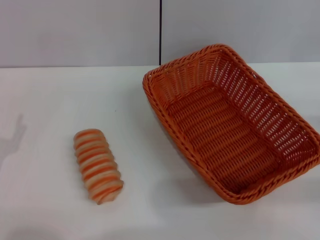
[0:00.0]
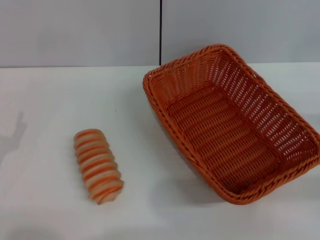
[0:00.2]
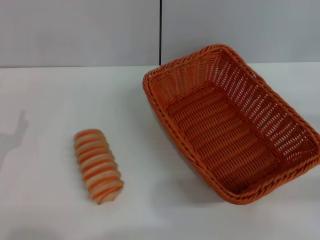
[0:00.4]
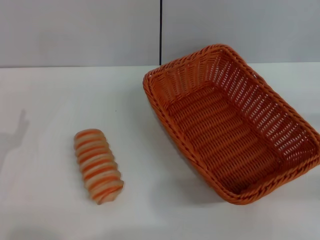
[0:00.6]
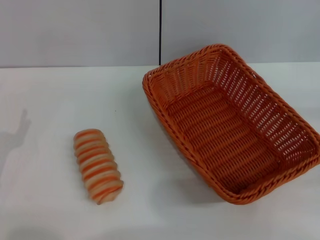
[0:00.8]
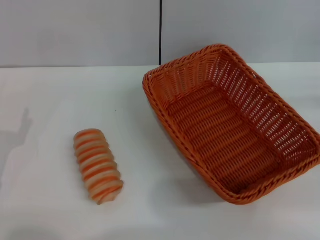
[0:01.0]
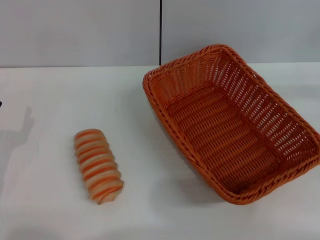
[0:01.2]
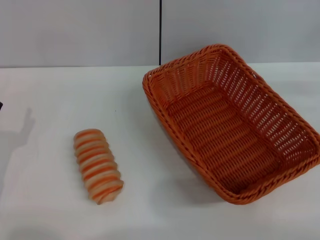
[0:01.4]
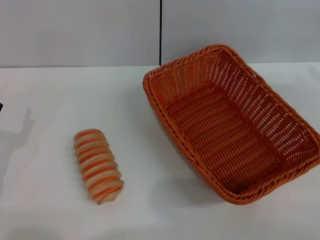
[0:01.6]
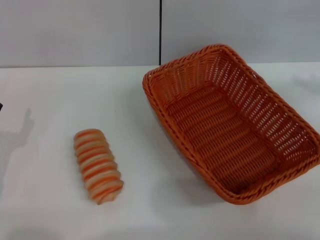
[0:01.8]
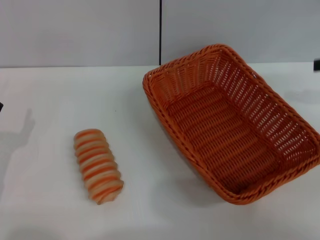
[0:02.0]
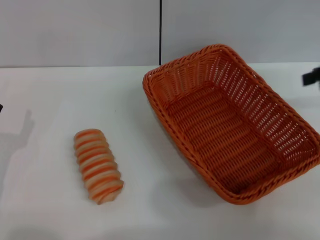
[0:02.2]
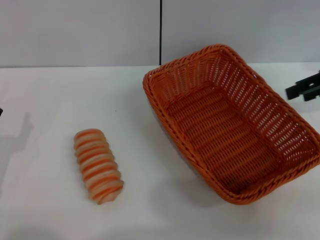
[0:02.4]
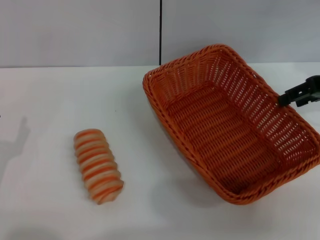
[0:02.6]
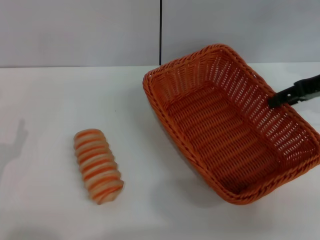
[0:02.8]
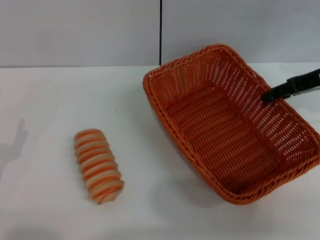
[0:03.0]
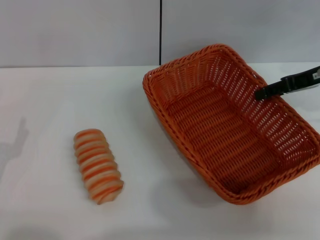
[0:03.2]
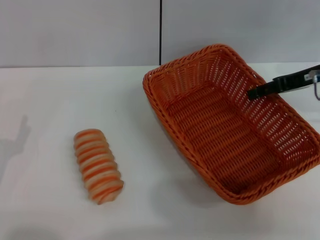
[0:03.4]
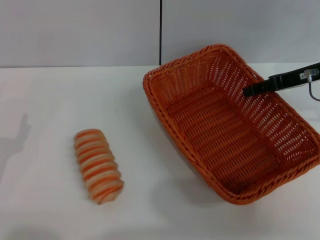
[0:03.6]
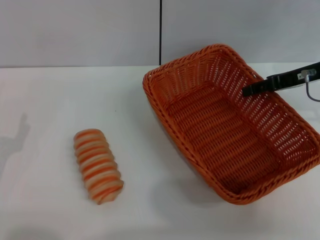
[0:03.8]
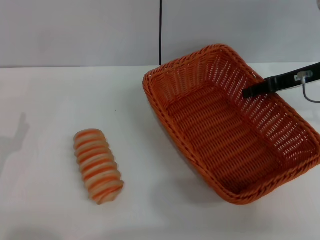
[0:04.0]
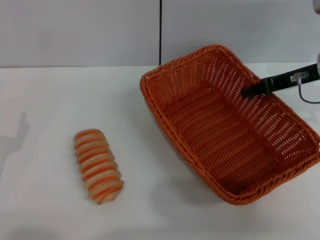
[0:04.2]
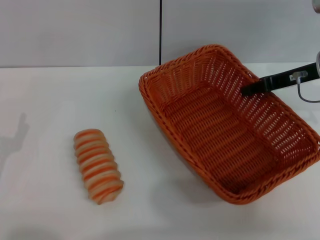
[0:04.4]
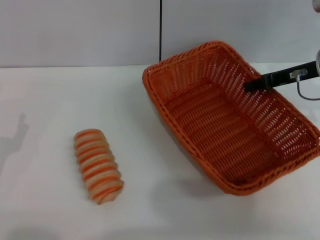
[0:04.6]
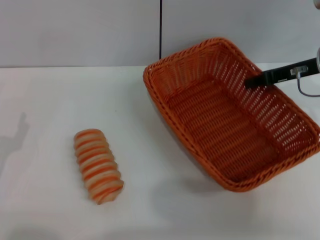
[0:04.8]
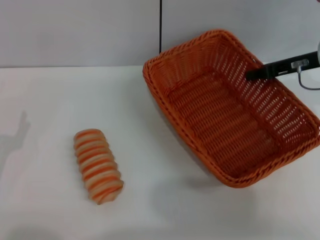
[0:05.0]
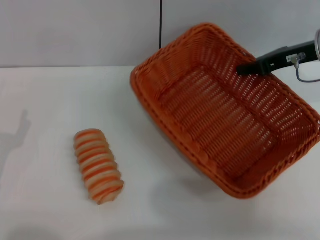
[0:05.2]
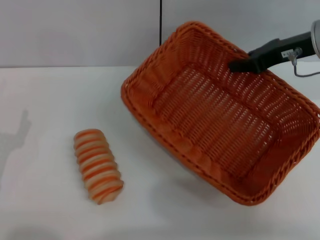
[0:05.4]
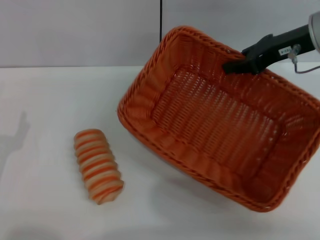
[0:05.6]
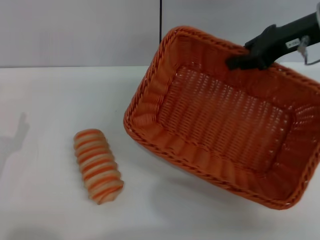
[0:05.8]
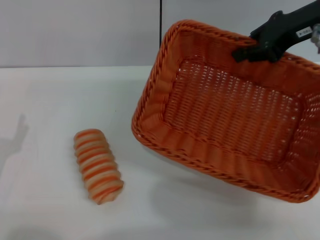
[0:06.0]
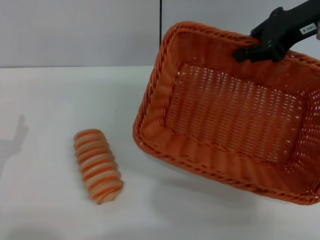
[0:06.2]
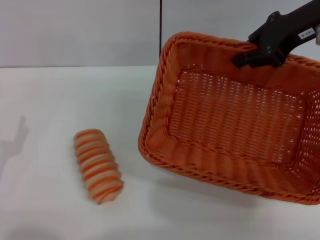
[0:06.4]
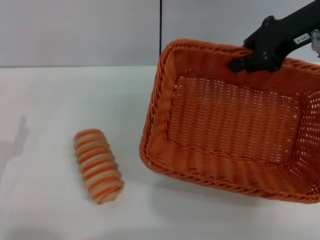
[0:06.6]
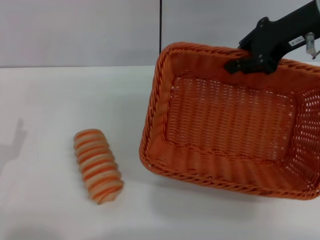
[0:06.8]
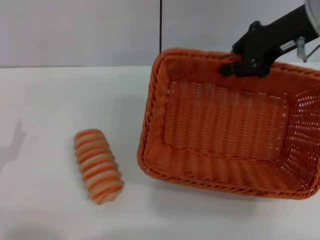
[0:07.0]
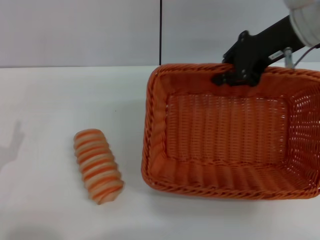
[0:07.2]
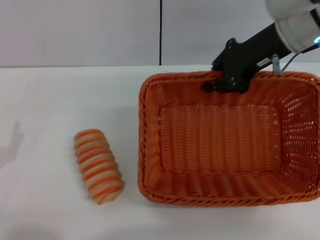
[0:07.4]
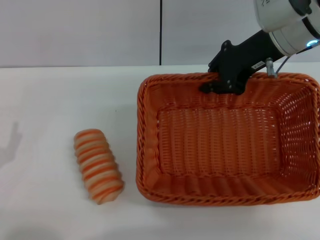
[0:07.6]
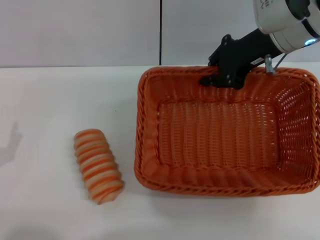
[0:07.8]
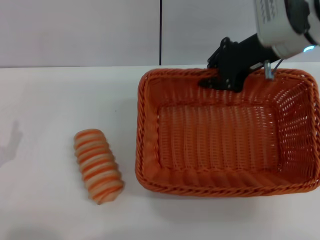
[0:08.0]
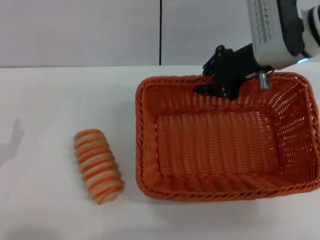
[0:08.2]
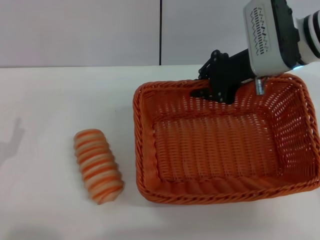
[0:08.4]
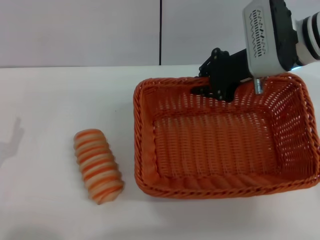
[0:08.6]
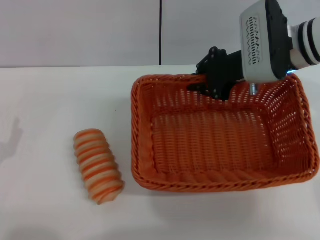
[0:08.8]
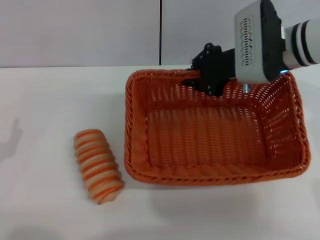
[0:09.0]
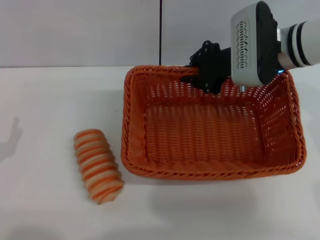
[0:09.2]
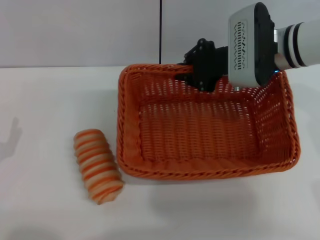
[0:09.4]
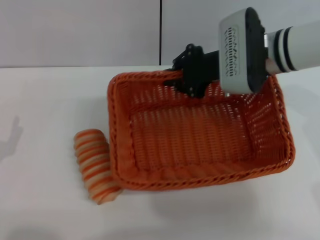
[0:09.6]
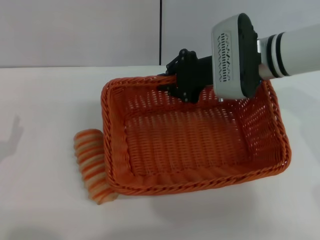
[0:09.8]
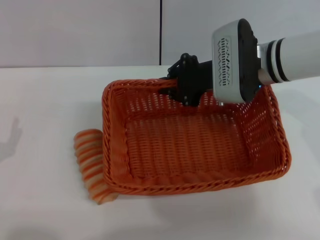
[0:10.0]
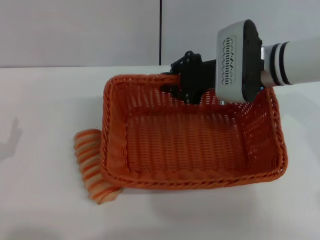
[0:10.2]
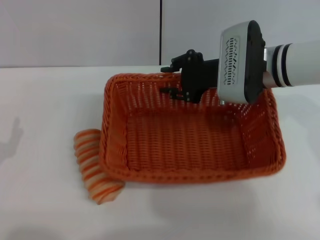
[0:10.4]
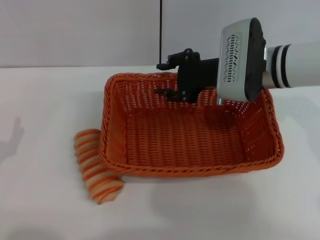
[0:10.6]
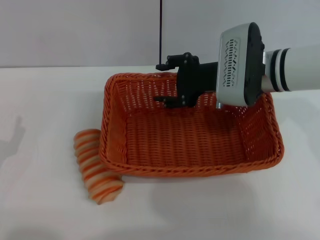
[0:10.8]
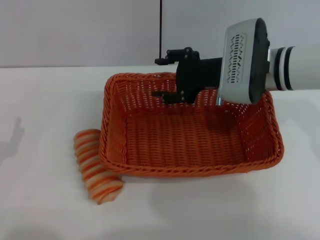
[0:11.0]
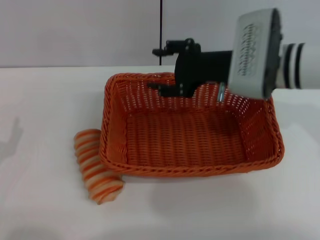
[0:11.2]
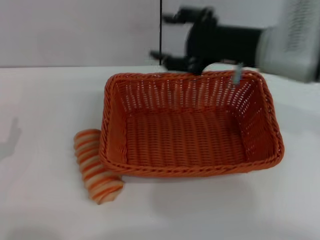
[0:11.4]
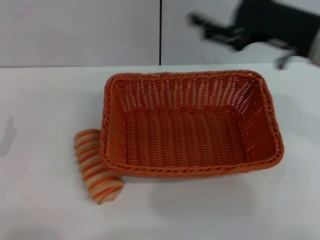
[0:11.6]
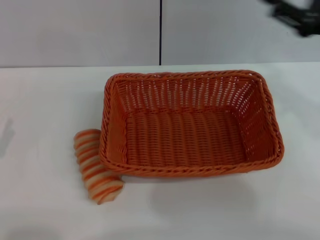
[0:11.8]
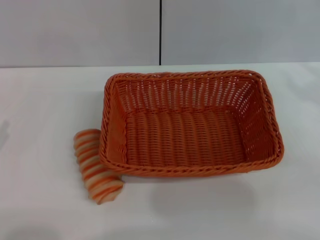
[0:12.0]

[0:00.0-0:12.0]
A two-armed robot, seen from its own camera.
Step, 0:00.0 to 0:06.2: Pick up the light basket with the right gripper.
Step, 0:06.4 to 0:11.2: Place the light basket in the center of view with the right gripper.
0:01.6 to 0:03.0: The right gripper travels to the left and forward by approximately 15 cm.
0:03.0 to 0:04.4: The right gripper closes up.
0:04.4 to 0:06.0: The right gripper is displaced upward by about 10 cm, and closes its fingers.
0:06.0 to 0:07.6: The right gripper heads to the left, covering some 5 cm.
0:07.6 to 0:09.0: The right gripper shifts some 5 cm downward.
0:09.0 to 0:10.4: The grippers move only a little.
0:10.4 to 0:12.0: The right gripper moves to the right and backward, some 25 cm, and opens its fingers, while the left gripper moves to the left, approximately 5 cm.

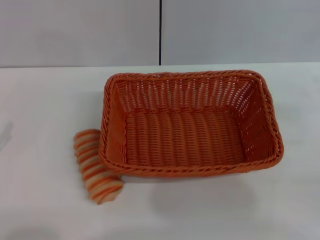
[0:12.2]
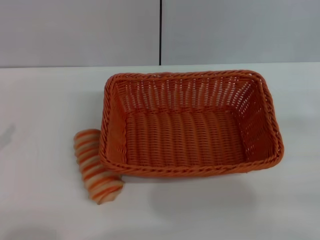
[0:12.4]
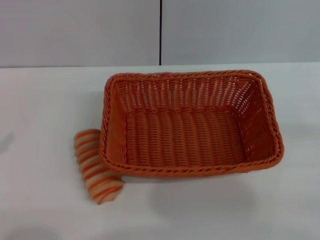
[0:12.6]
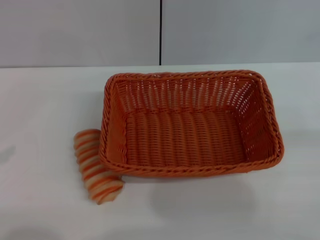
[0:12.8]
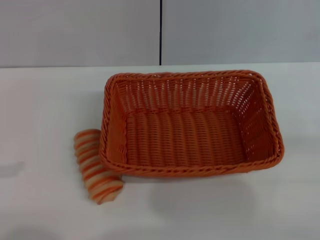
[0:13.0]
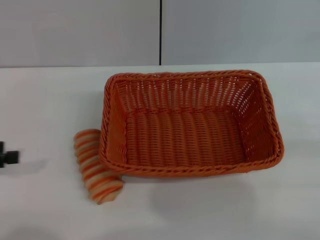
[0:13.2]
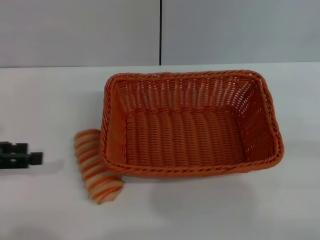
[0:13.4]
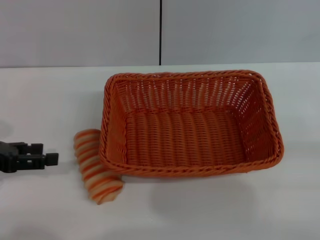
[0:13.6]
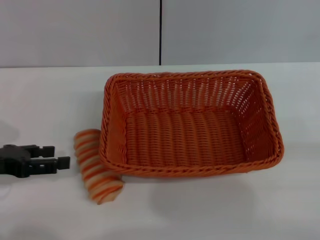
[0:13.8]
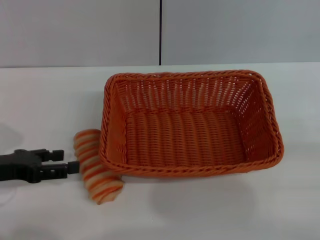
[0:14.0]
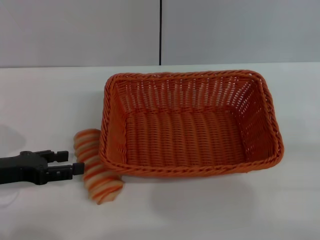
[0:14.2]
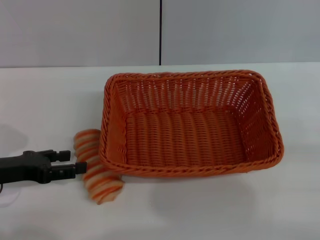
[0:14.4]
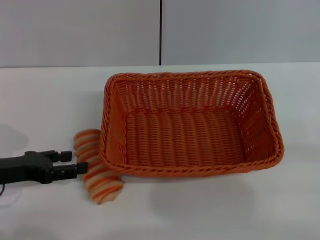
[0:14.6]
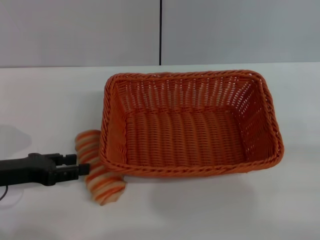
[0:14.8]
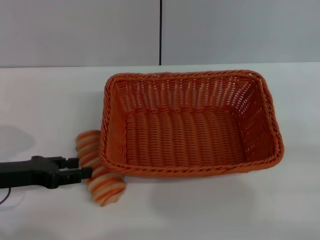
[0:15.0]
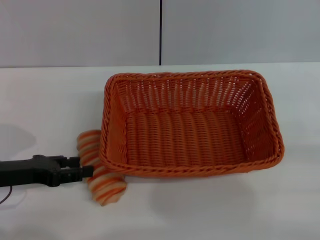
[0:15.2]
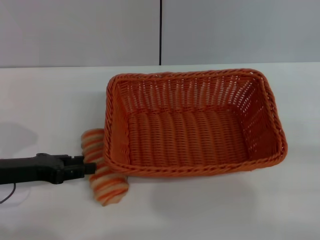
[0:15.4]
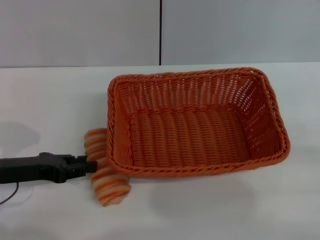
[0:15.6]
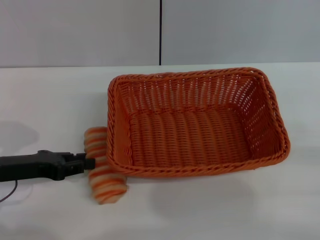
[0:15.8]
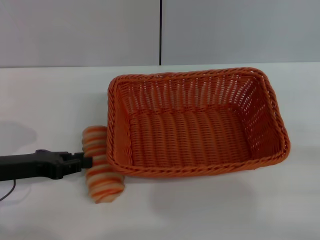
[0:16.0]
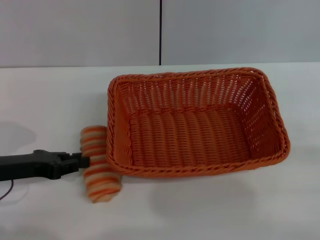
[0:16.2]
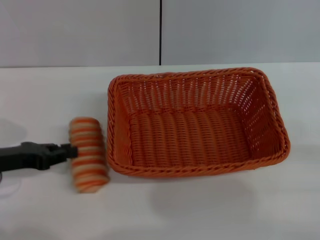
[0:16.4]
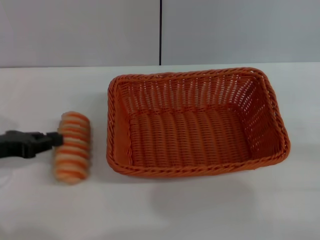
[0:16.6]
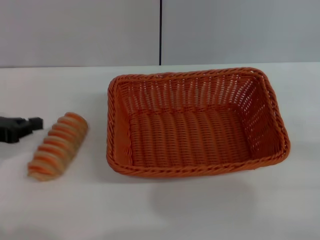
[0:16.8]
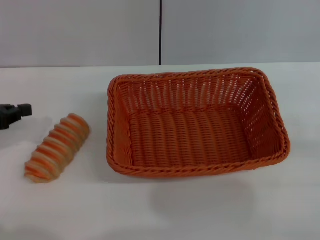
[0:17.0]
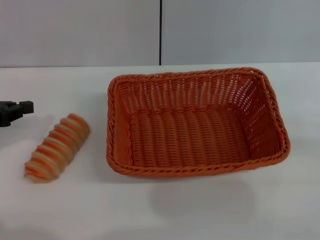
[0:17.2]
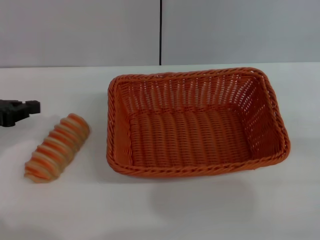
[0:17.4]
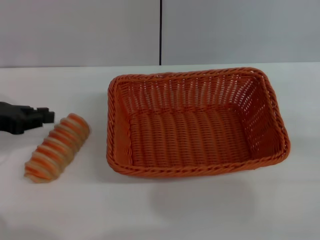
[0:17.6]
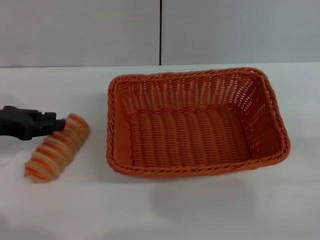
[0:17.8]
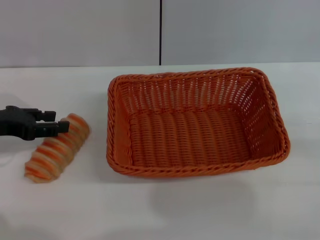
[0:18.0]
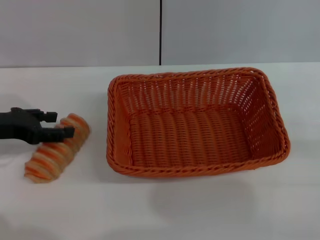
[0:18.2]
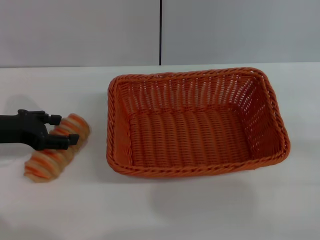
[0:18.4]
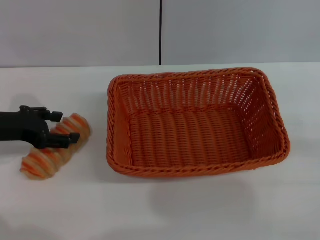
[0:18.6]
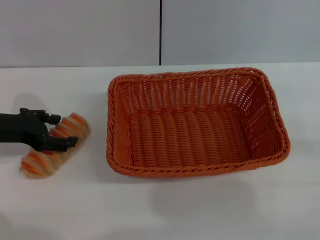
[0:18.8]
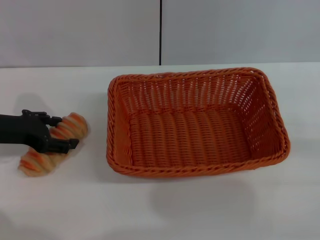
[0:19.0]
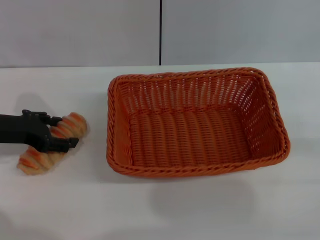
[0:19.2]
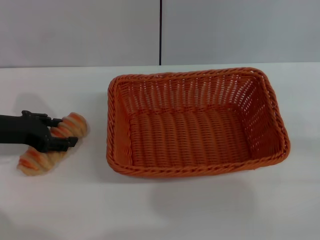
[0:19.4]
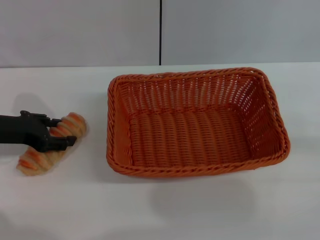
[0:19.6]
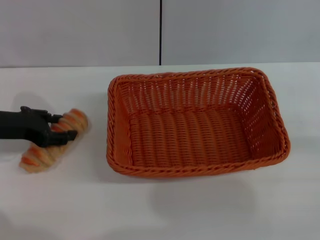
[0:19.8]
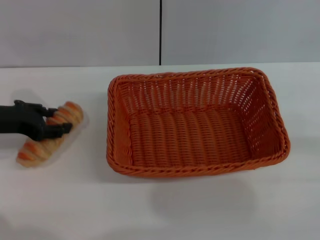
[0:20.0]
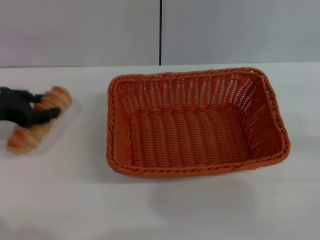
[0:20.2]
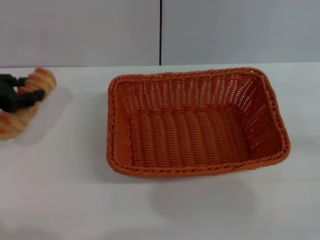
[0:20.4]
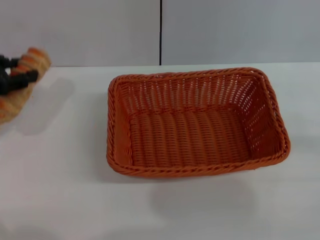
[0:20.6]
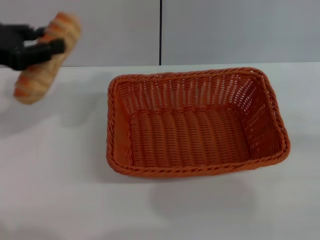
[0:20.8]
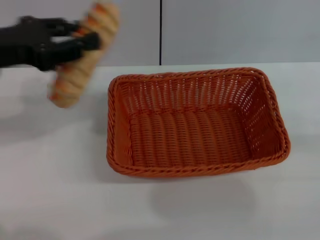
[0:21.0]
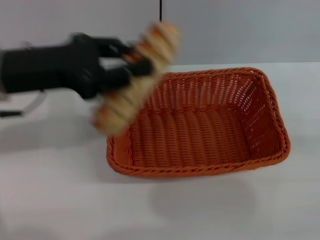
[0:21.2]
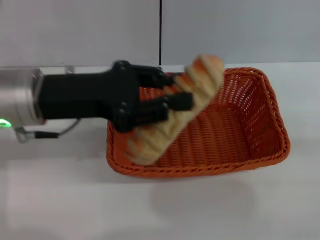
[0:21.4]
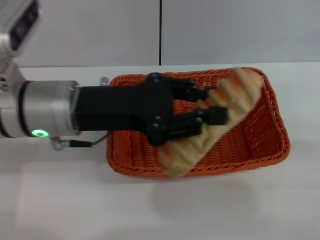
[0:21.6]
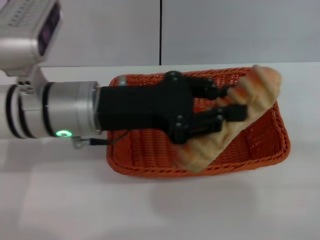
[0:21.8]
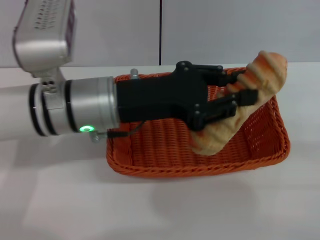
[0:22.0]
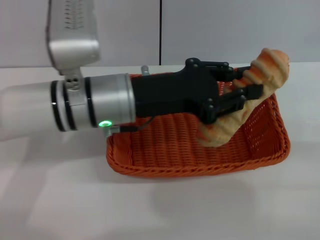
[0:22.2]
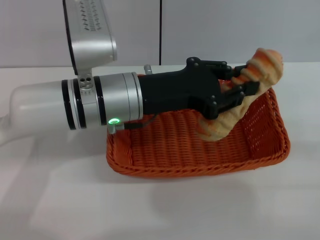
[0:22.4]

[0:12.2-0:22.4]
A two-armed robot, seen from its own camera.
Step, 0:12.2 to 0:20.6: Pick up the long bread with the left gripper.
0:12.2 to 0:13.6: The left gripper travels forward by roughly 10 cm.
0:13.6 to 0:15.2: The left gripper goes about 5 cm downward.
0:15.2 to 0:16.6: The left gripper closes up.
0:16.6 to 0:18.0: The grippers move only a little.
0:18.0 to 0:19.4: The left gripper opens.
0:19.4 to 0:21.0: The left gripper moves upward, about 10 cm, and closes.
0:21.0 to 0:22.4: The left gripper shifts some 20 cm to the right.
